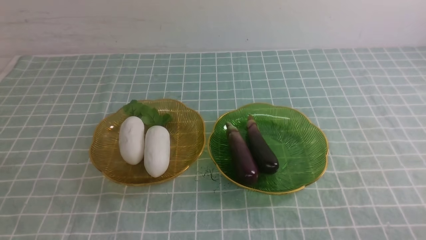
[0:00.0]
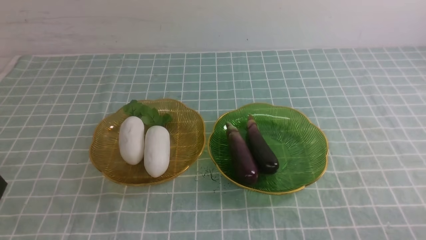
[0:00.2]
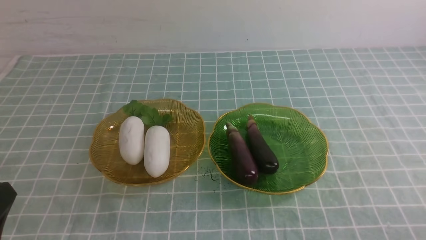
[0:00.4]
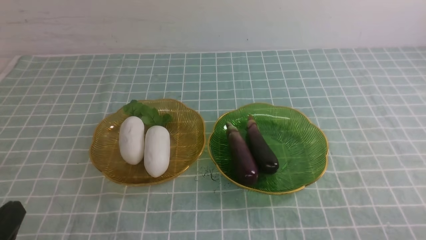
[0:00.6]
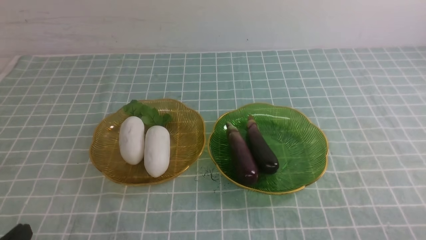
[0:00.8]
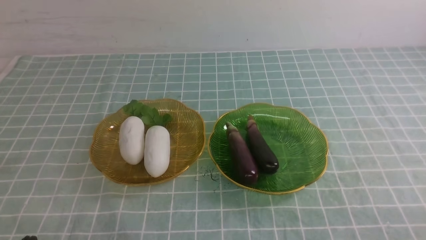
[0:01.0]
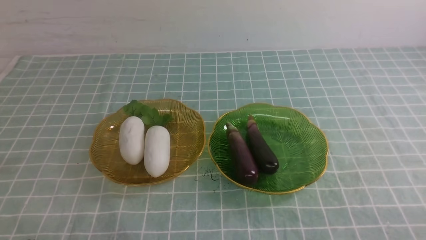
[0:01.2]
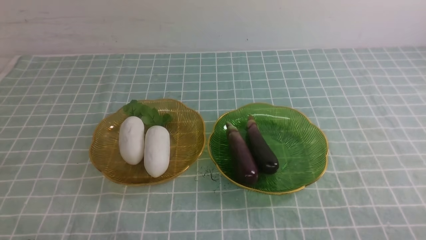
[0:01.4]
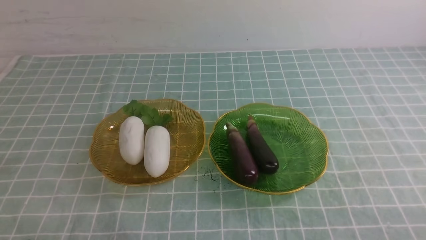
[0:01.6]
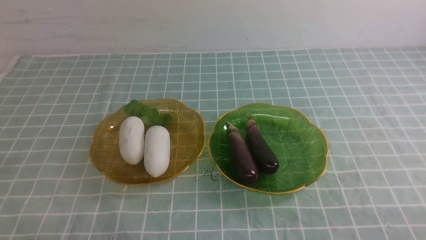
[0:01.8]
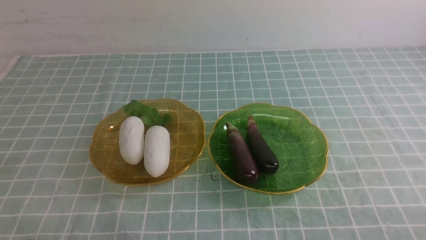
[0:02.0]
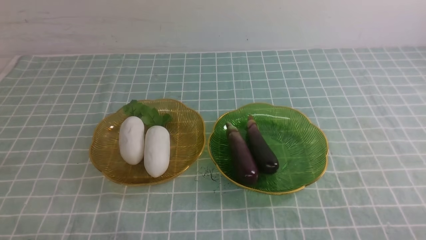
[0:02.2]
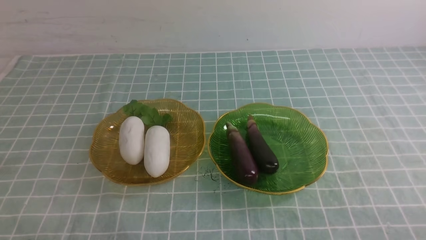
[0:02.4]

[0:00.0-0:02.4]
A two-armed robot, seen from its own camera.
0:01.2 to 0:02.4: The two grippers keep their place.
